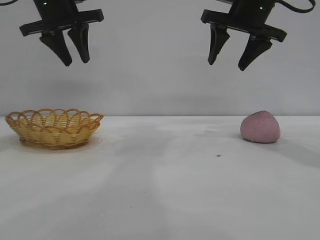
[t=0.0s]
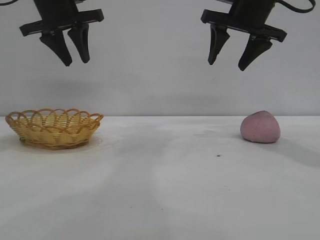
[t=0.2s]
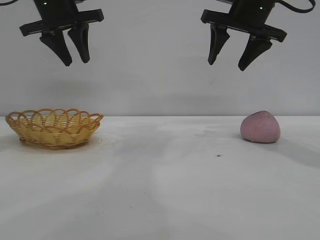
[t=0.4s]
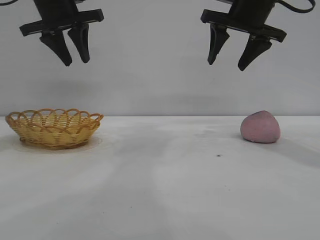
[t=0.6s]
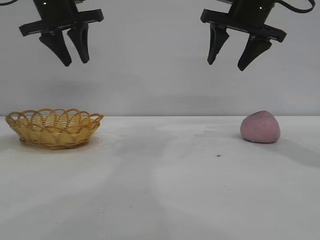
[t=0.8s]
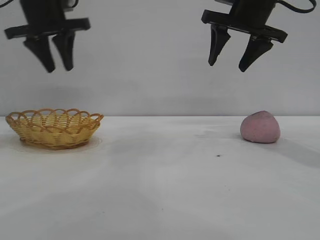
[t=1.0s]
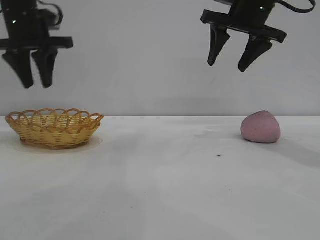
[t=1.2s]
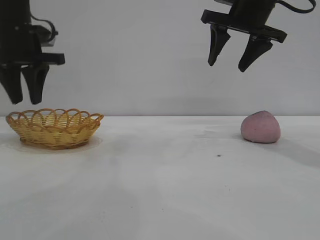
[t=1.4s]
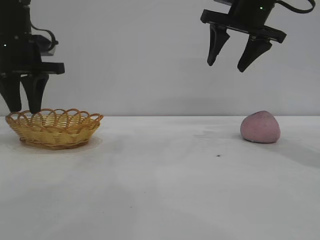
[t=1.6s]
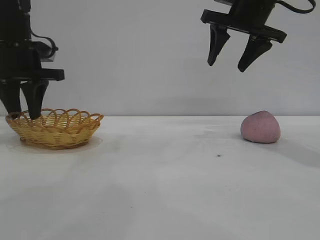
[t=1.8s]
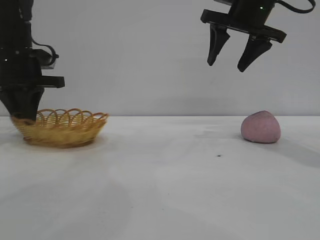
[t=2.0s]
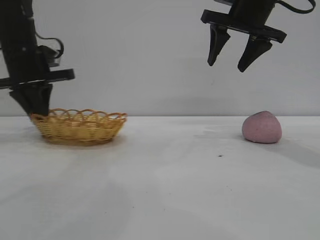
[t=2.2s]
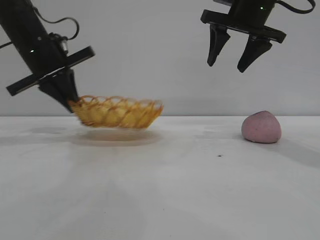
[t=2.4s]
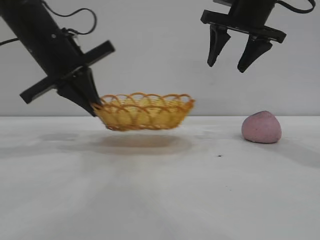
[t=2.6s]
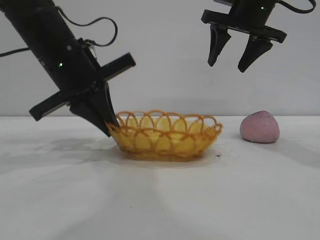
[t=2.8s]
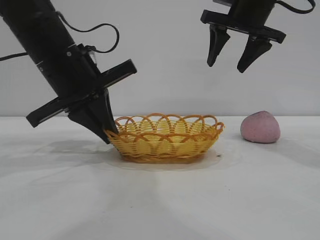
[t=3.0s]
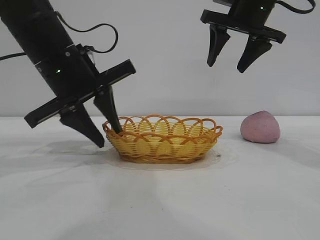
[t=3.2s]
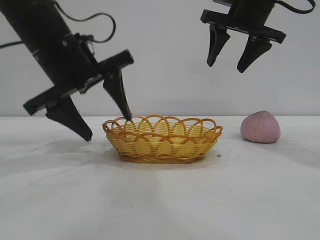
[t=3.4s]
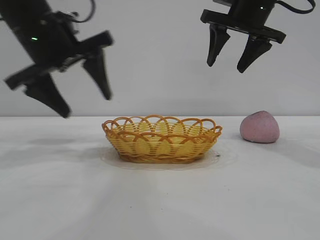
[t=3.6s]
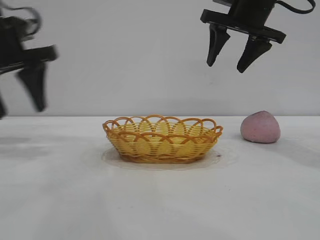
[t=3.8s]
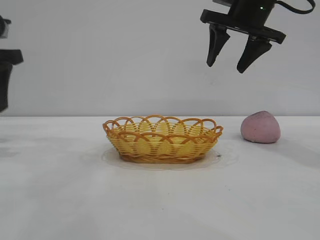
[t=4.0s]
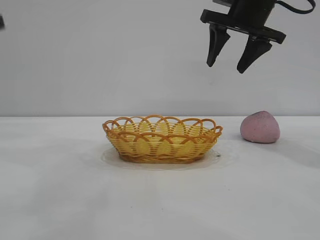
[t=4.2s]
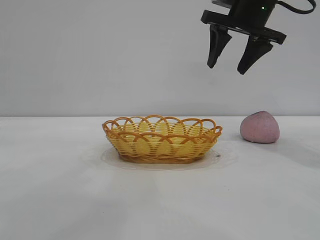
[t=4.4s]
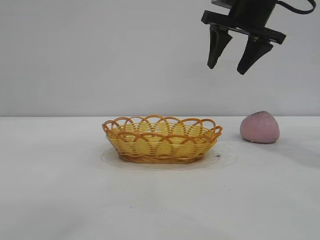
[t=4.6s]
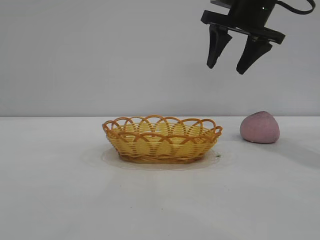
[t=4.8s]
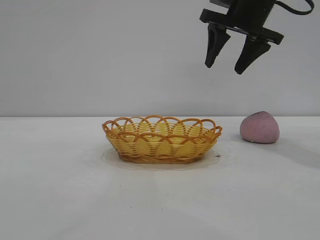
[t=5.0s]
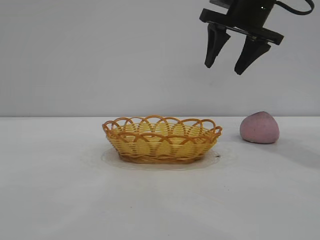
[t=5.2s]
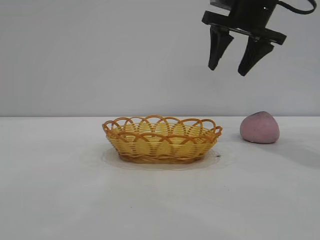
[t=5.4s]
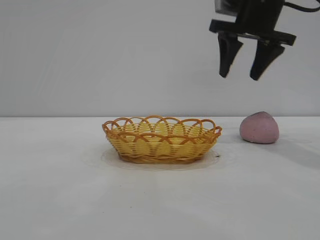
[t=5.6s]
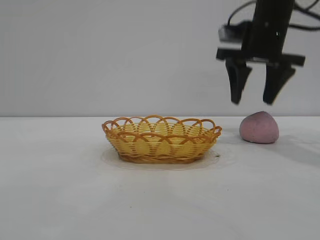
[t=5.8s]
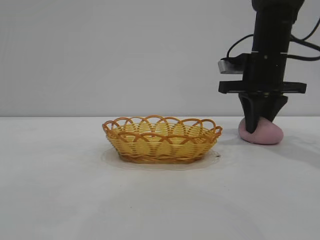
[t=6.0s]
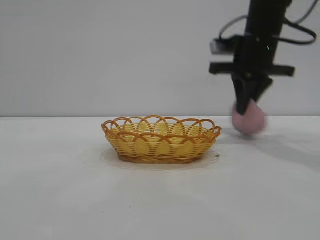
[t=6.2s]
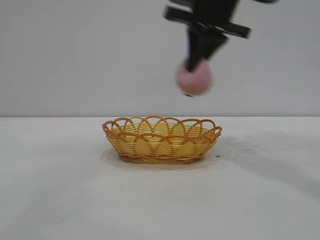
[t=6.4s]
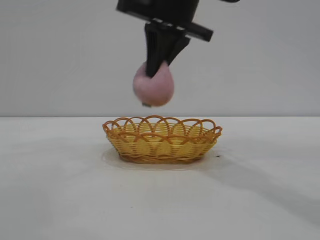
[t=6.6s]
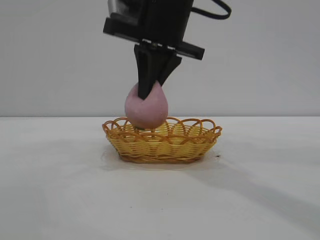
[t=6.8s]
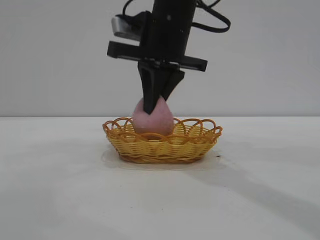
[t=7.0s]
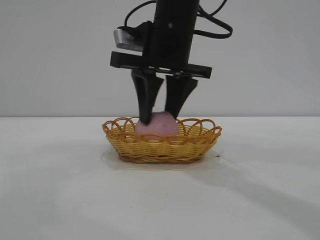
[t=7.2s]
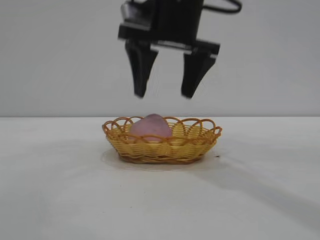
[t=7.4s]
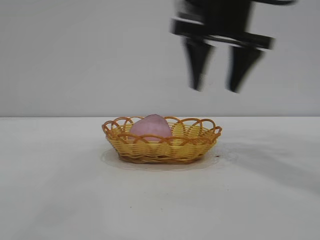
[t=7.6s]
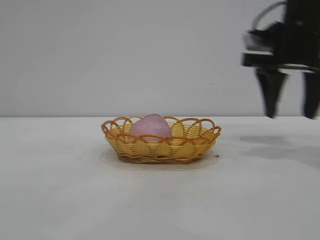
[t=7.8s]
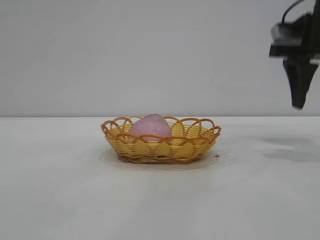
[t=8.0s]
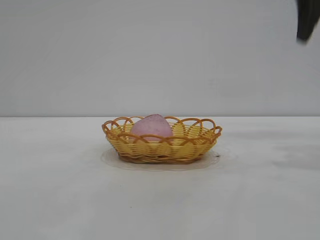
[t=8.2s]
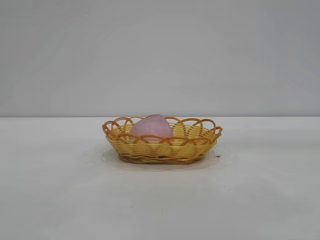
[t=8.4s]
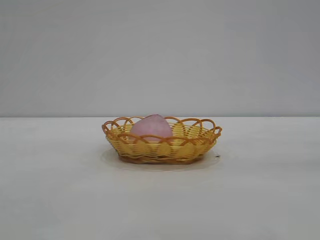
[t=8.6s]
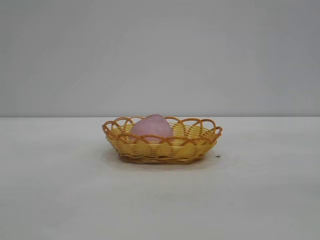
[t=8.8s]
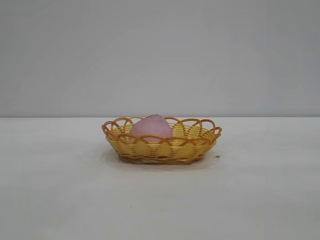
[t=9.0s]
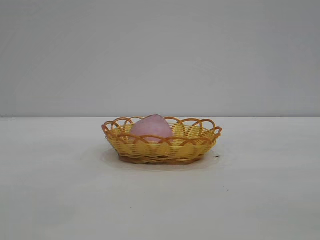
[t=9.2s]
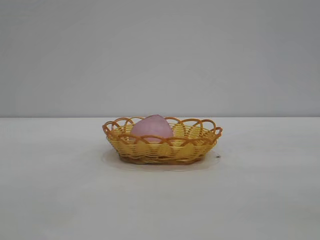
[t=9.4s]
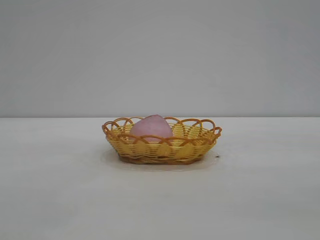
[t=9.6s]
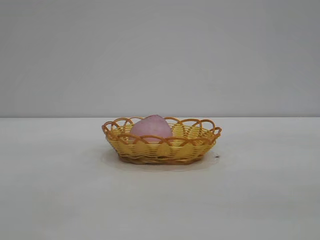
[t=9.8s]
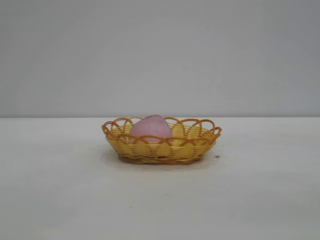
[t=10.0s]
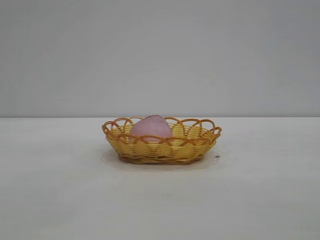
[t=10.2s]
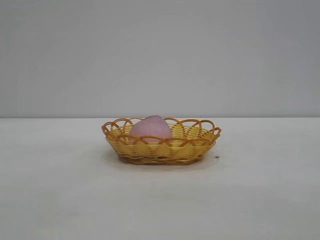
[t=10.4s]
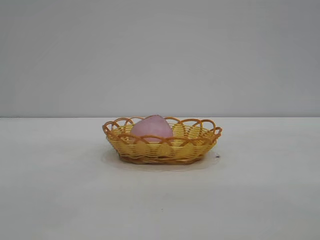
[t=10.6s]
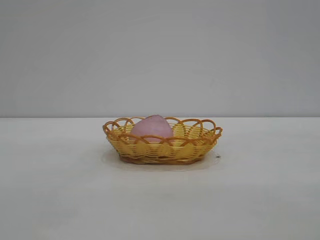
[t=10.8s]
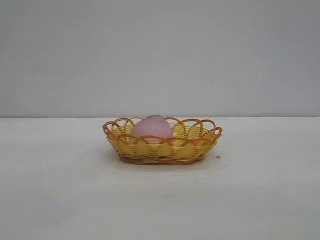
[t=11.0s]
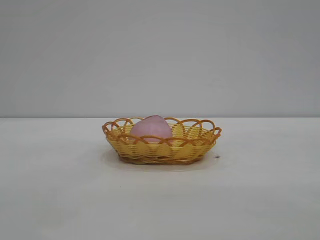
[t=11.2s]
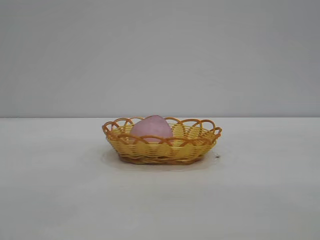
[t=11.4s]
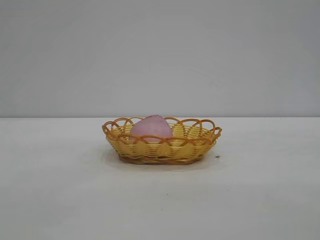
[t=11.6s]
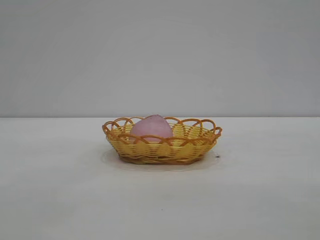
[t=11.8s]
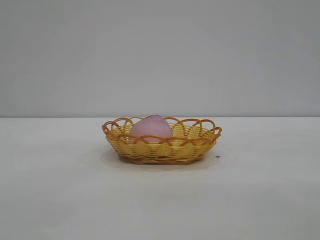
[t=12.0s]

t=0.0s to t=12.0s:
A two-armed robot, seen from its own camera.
Task of the whole recording: pick up the peach and put it into the basket.
Step, t=0.0s to t=3.4s: Move the basket to the center of view.
Step, t=3.6s to t=6.2s: Pick up the peach.
Step, t=6.4s to t=7.4s: place the peach into the basket.
